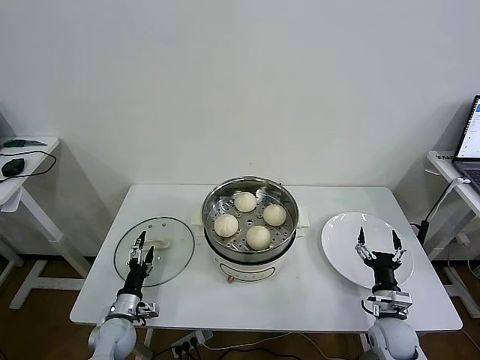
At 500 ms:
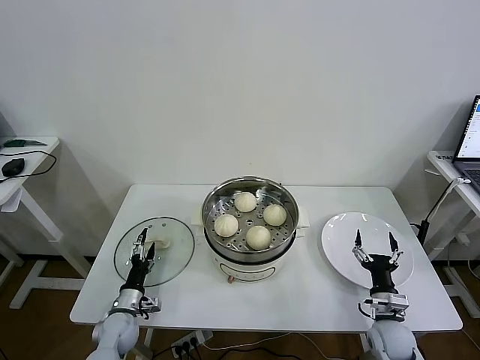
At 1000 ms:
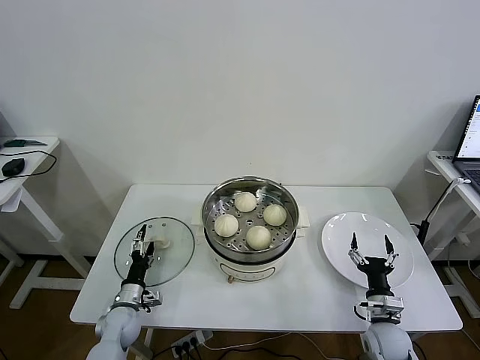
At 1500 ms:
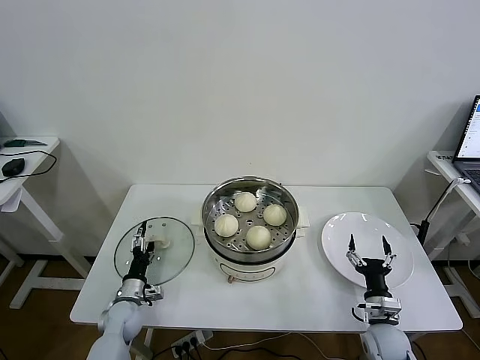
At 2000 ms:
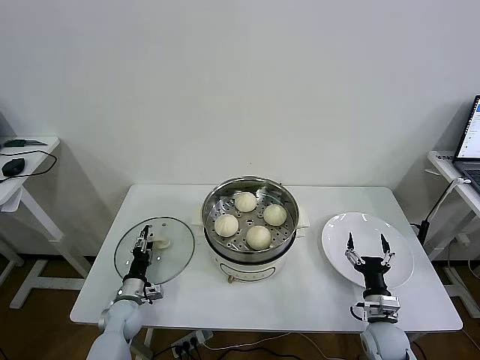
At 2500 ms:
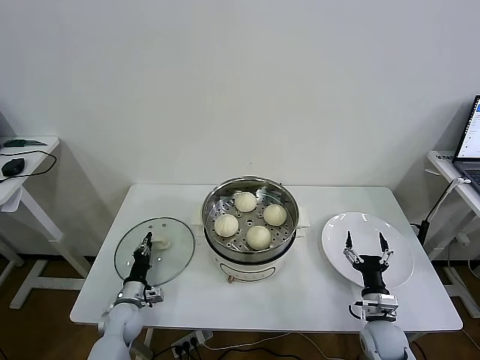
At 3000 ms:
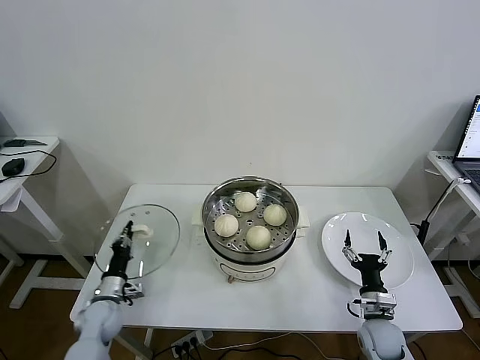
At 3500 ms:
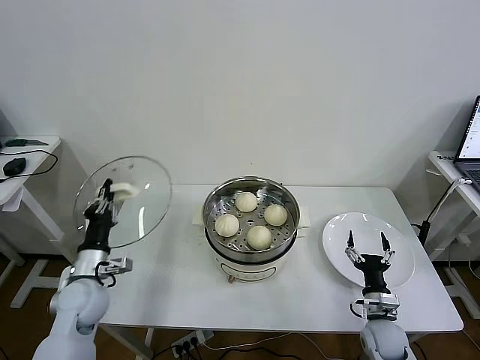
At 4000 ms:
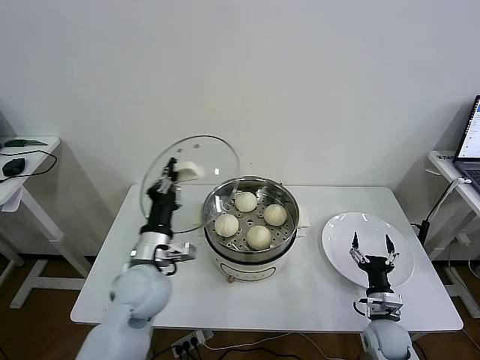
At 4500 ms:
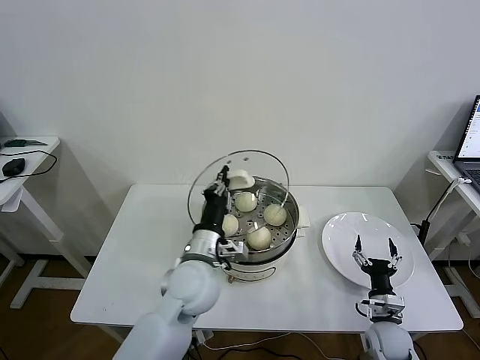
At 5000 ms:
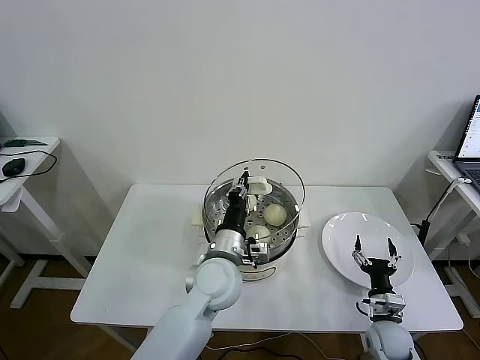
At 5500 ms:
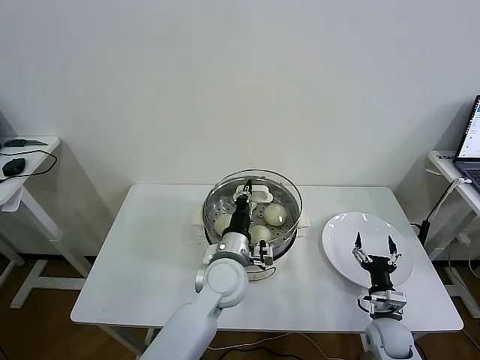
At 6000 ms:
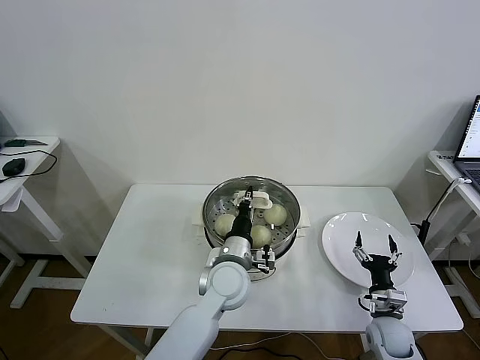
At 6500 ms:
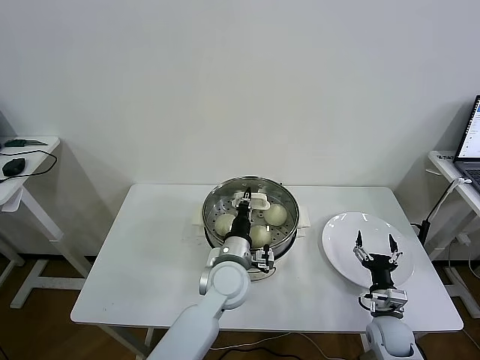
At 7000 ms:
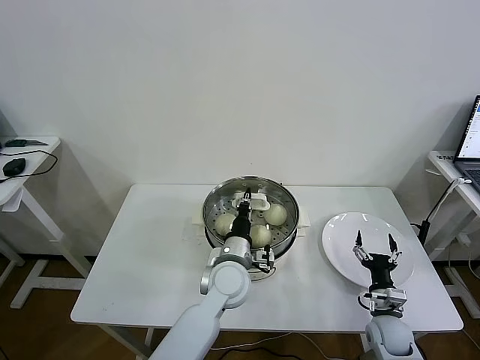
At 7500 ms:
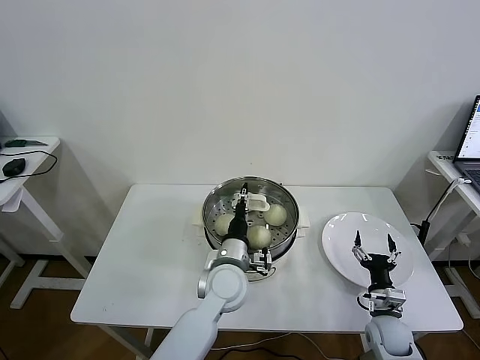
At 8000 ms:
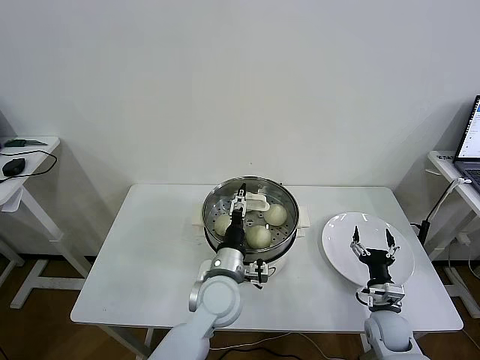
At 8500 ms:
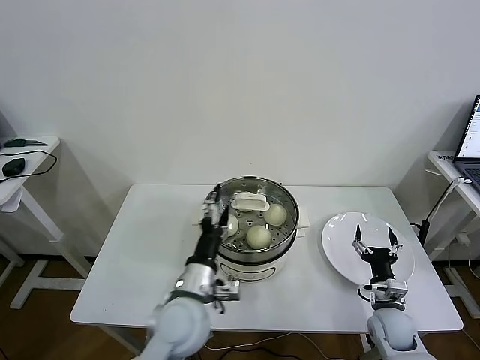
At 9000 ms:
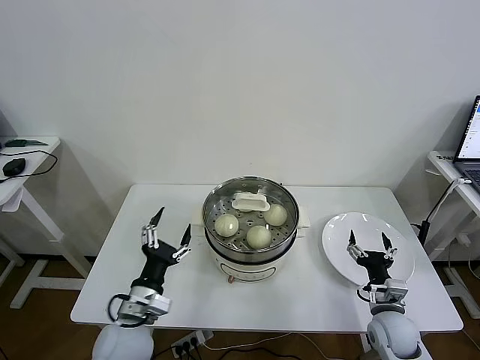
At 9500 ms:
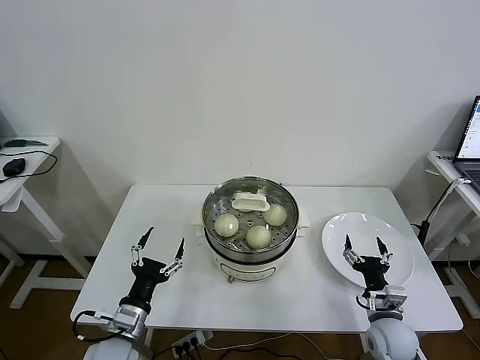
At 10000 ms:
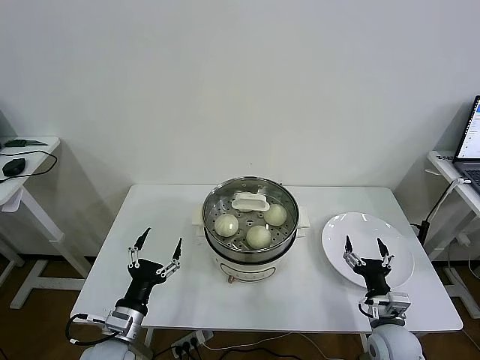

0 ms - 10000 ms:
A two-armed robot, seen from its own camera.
Task of the whole recording: take steamed baozi put them in steamer then cover it.
Step, 0 ms - 2500 ms: Grasp the pot lid with left gripper.
Step, 3000 ms - 7000 ms: Place the pot lid on the steamer with left gripper.
0 ms - 2000 ms: The left gripper moves forward, about 5 cm, and closes.
2000 ms - 4000 ms: The left gripper is displaced upward and to the right by about 30 cm, and closes up.
4000 ms - 6000 ms: The left gripper goes about 15 cm to the right.
6000 ms - 8000 ms: The left gripper opens its fingers.
8000 ms - 10000 ms: The left gripper shifts about 25 cm to the left and backward, while the right gripper moves upward, roughly 5 cm.

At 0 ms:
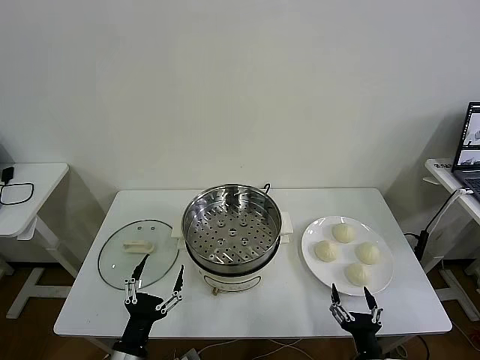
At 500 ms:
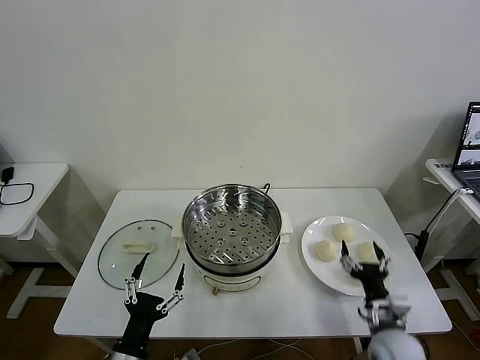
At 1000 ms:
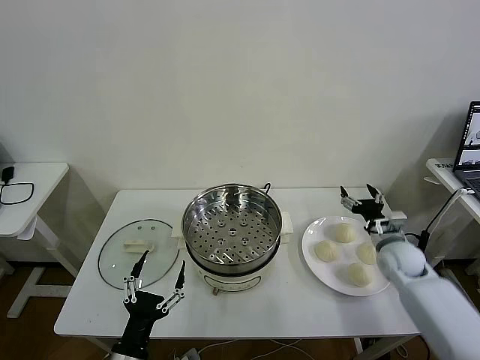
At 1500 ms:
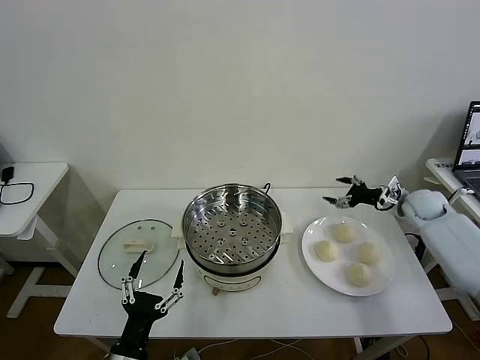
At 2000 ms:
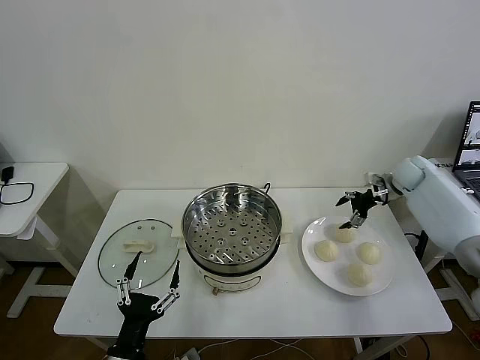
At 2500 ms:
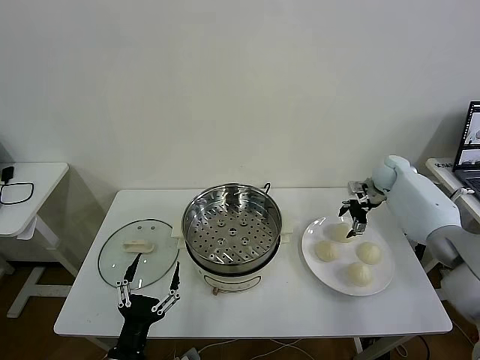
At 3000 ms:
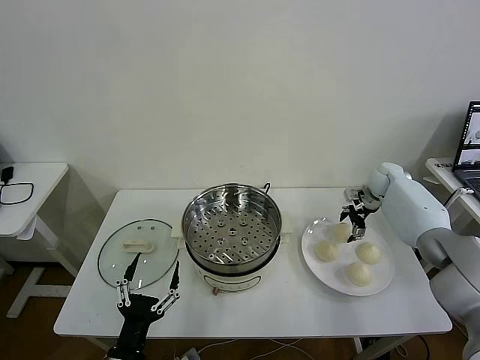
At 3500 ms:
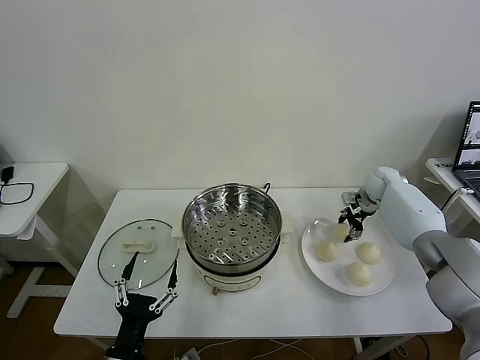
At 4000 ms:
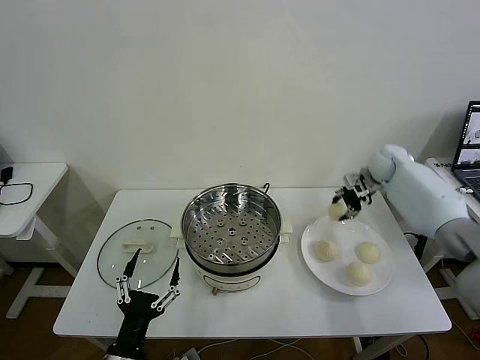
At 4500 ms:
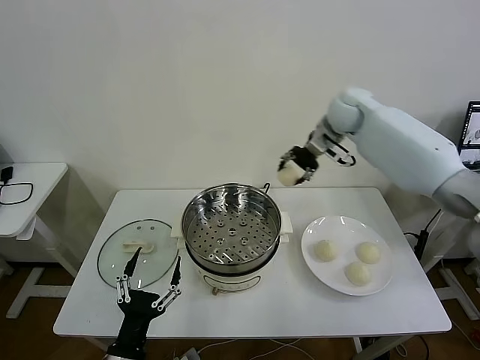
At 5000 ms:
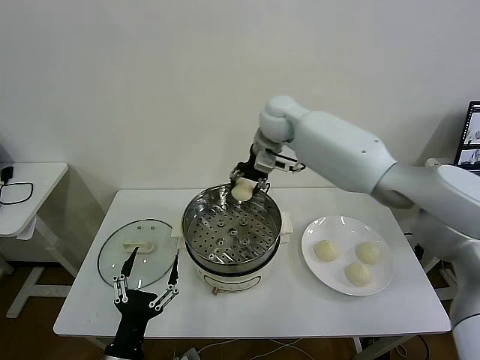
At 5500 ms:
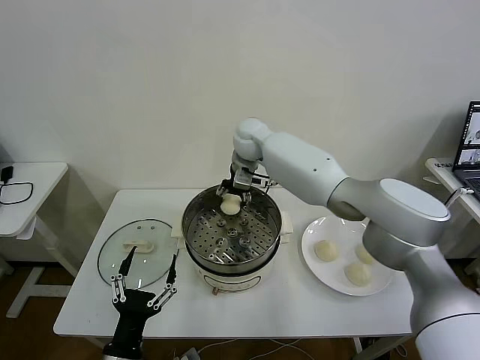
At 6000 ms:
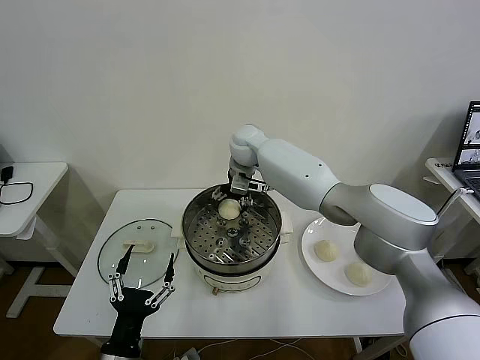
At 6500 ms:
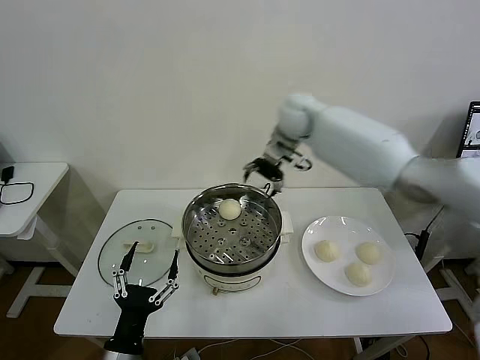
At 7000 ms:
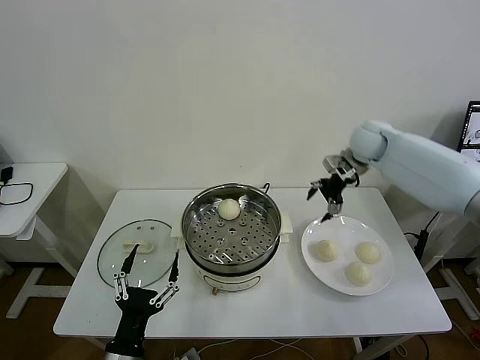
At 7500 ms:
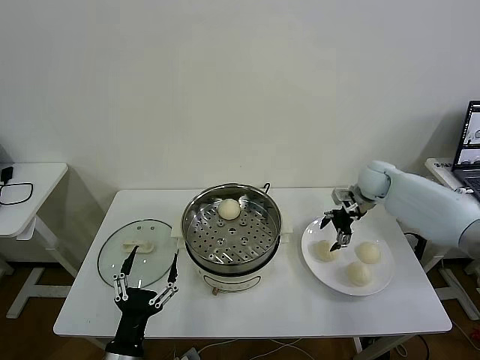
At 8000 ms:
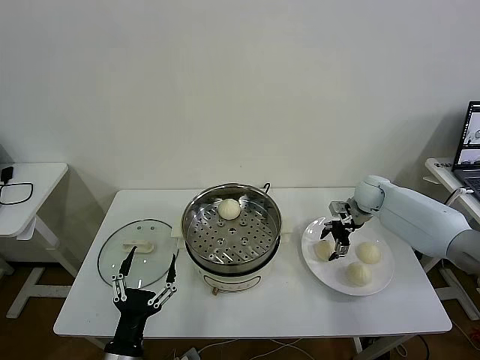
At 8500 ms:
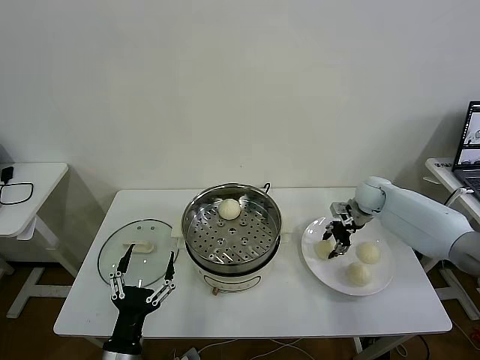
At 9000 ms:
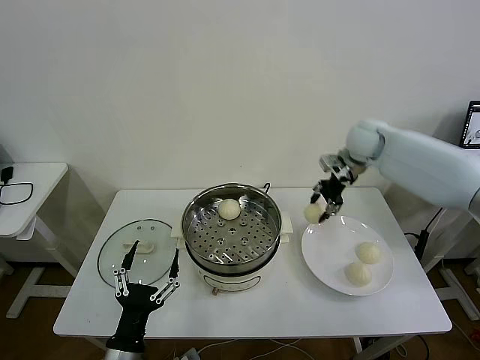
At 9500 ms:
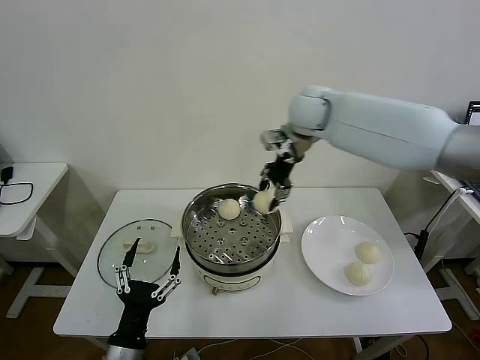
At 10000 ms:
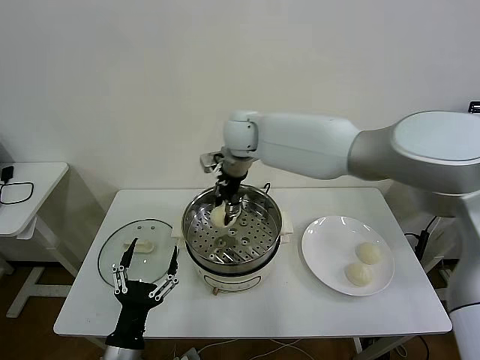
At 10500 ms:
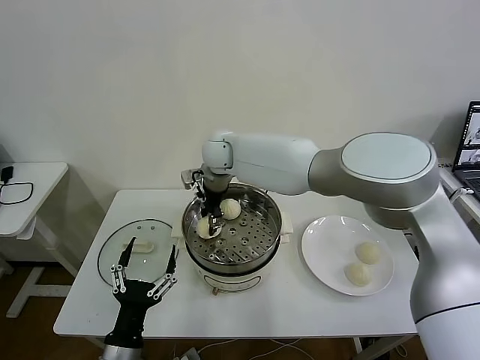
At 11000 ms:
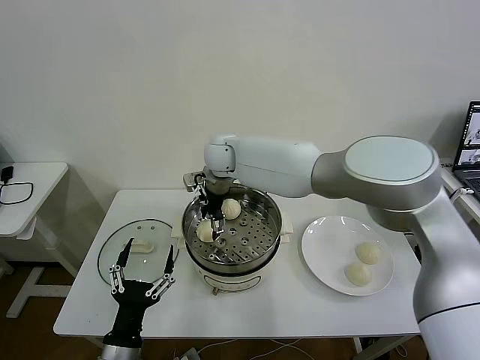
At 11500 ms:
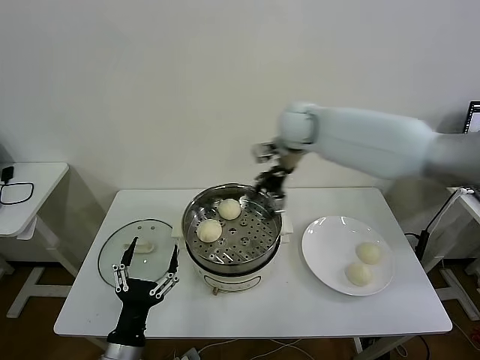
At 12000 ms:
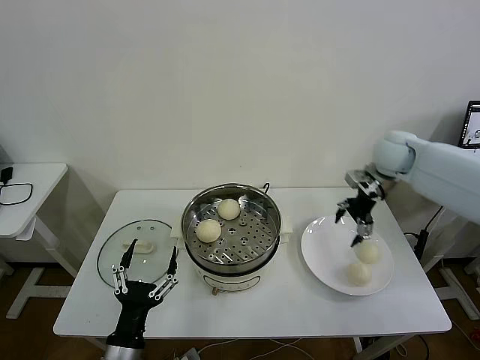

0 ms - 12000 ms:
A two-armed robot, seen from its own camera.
Task of the whole recording: take steamed baozi put them in steamer then cover it.
Step, 0 ms - 3500 ms: Grasp the baozi in the plate with right gripper.
Step, 4000 ms - 6000 ms: Place the baozi on the steamer with right gripper.
Step, 6500 ms - 8000 ms: Grasp the baozi in the plate with right gripper.
Step, 8500 ms - 11000 ms: Place the baozi on the steamer with right gripper.
2000 ms - 4000 ms: The right gripper heads to the left and upward, covering some 10 cm, and closes up.
4000 ms - 6000 ms: The right gripper is displaced to the left by some 35 cm, and opens its fingers.
6000 ms - 8000 ms: The right gripper travels to the right and downward by about 35 cm.
8000 ms - 10000 ms: The right gripper heads to the left and upward, covering approximately 40 cm, and closes.
10000 ms - 12000 ms: The right gripper is displaced to the right by roughly 35 cm, and opens its fingers.

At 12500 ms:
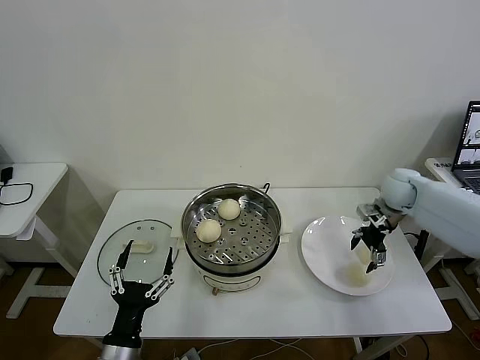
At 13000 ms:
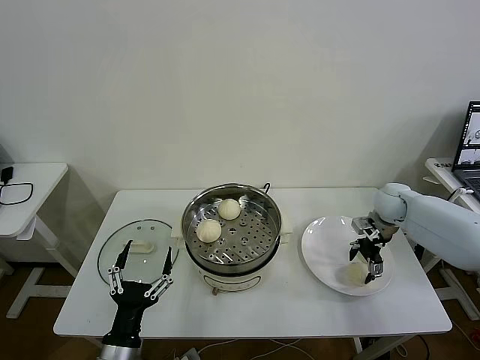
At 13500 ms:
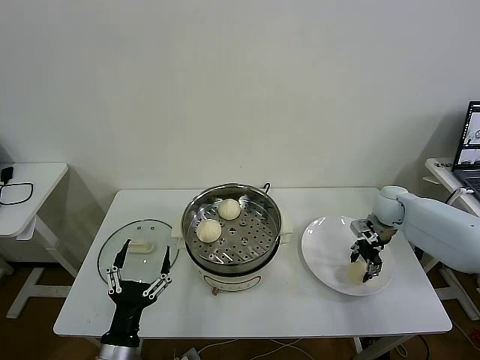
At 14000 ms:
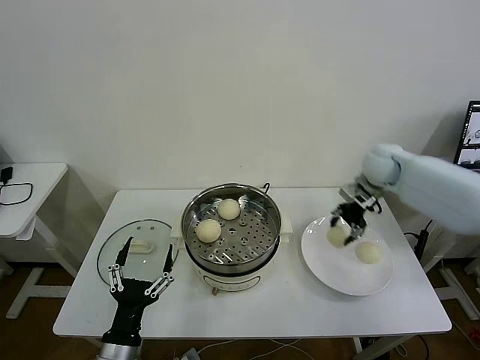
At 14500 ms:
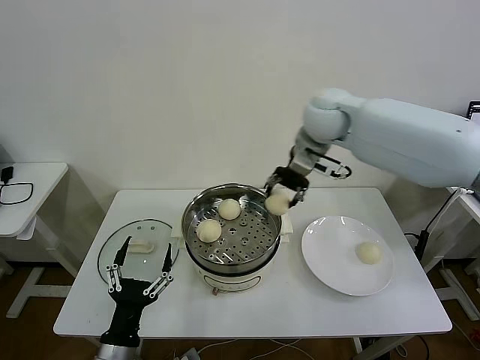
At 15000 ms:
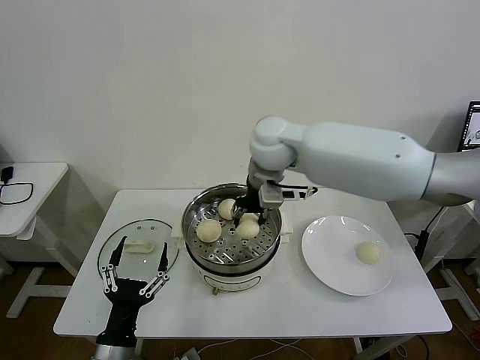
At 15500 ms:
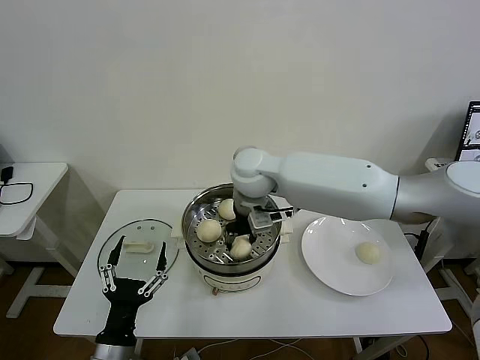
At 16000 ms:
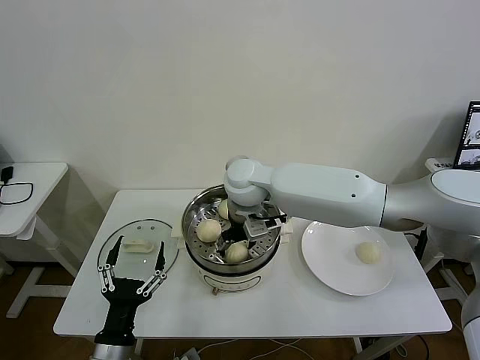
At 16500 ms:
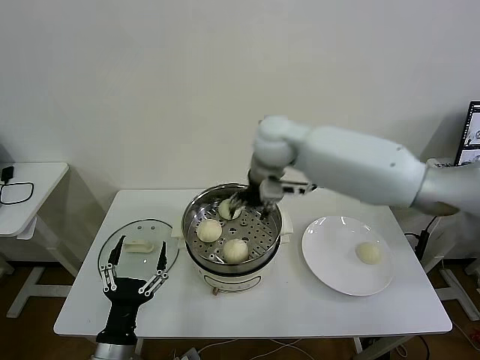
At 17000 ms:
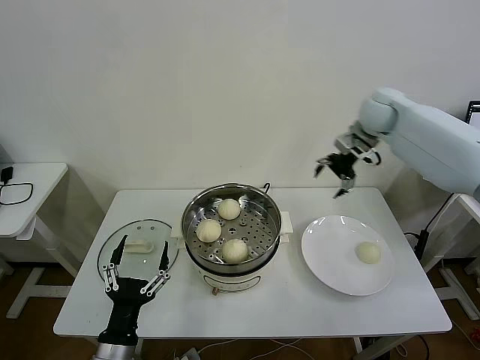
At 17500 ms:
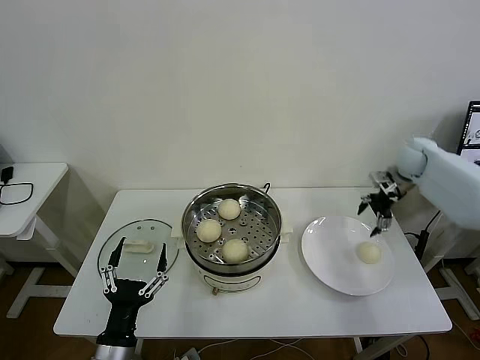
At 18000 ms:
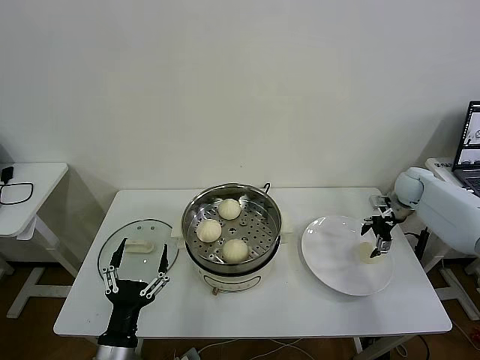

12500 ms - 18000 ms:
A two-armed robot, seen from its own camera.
Task of the whole recording: take steamed baozi put them in steamer then cover it.
Step, 14000 ms - 16000 ms: Place the baozi on the steamer with right gripper.
12500 ms - 14500 ms: The right gripper is displaced to the left and upward by roughly 35 cm, and closes its fingers.
14500 ms - 16000 ms: The right gripper is displaced to the left, downward and backward by roughly 20 cm, and opens.
16000 ms - 18000 ms: The right gripper shifts roughly 50 cm to the right.
